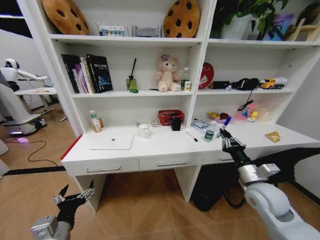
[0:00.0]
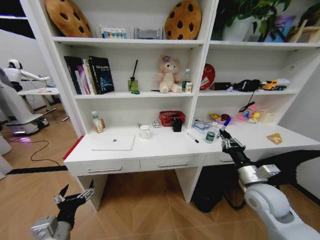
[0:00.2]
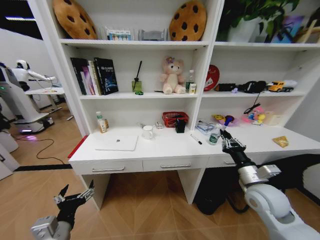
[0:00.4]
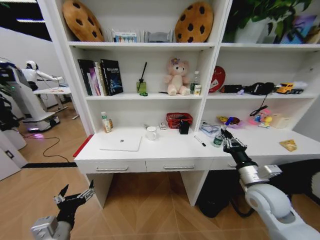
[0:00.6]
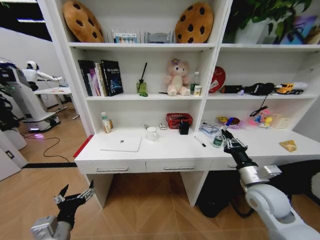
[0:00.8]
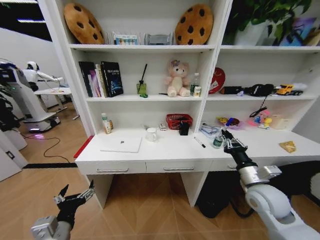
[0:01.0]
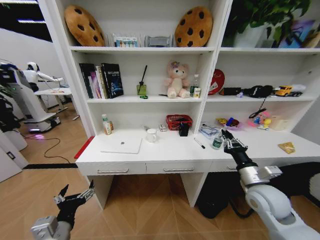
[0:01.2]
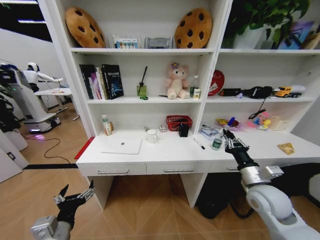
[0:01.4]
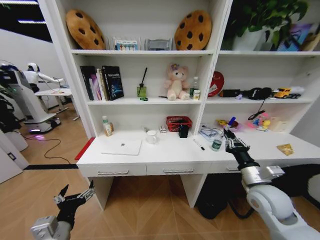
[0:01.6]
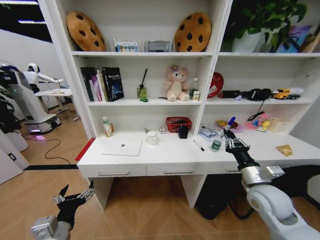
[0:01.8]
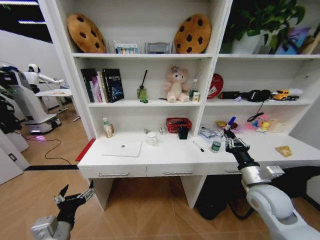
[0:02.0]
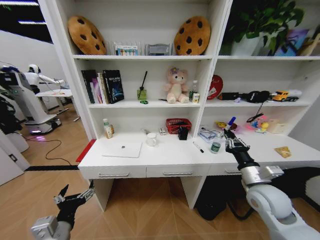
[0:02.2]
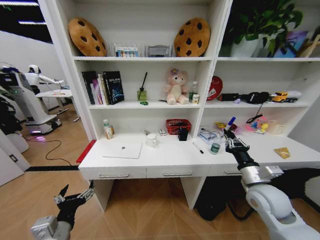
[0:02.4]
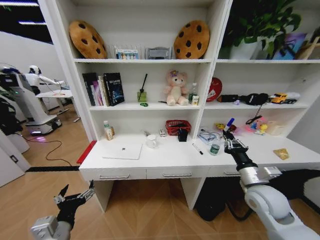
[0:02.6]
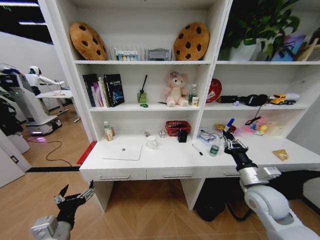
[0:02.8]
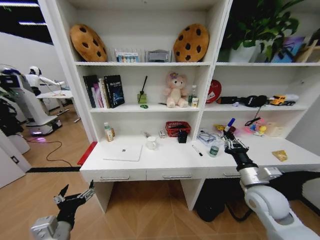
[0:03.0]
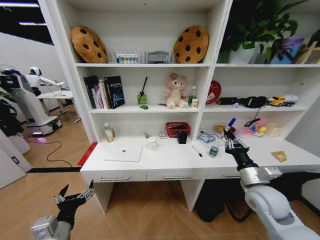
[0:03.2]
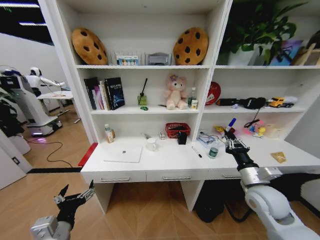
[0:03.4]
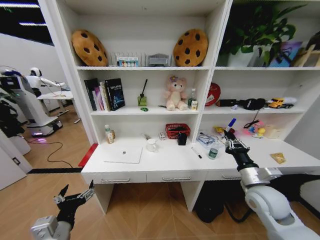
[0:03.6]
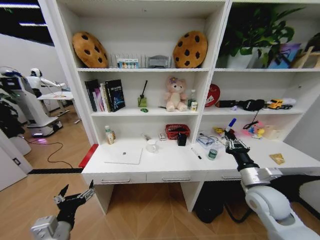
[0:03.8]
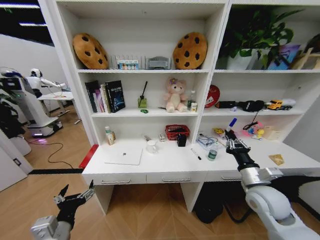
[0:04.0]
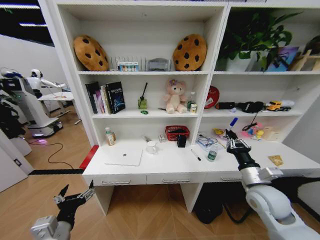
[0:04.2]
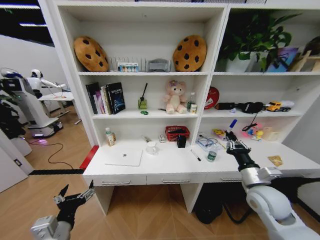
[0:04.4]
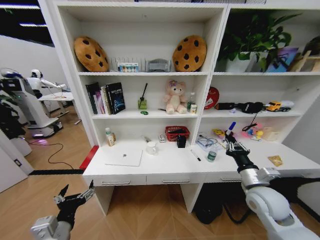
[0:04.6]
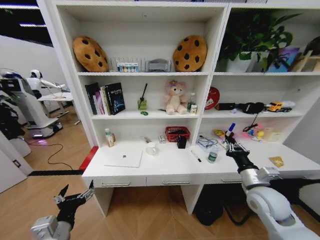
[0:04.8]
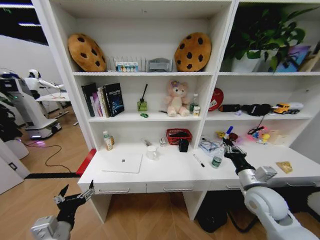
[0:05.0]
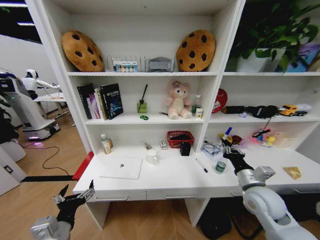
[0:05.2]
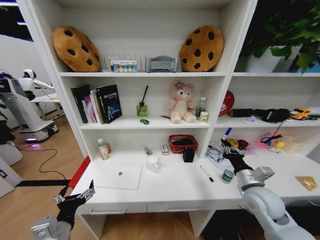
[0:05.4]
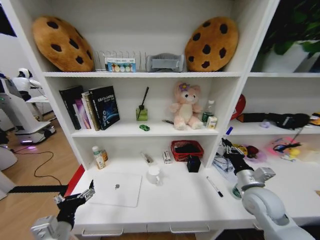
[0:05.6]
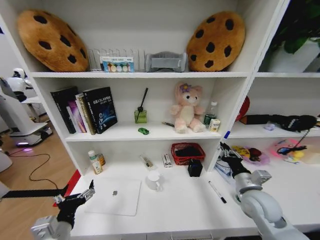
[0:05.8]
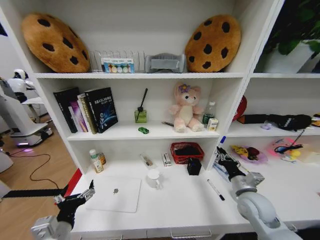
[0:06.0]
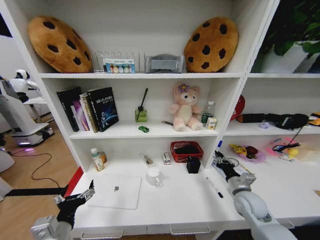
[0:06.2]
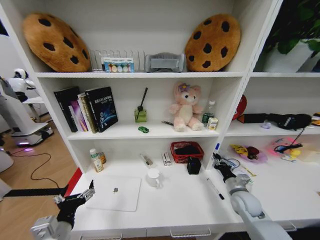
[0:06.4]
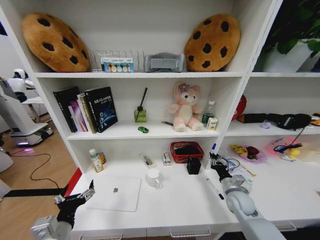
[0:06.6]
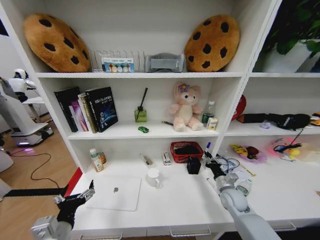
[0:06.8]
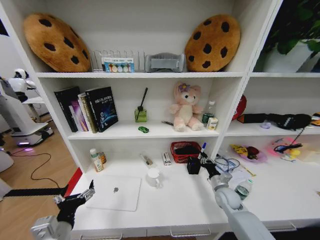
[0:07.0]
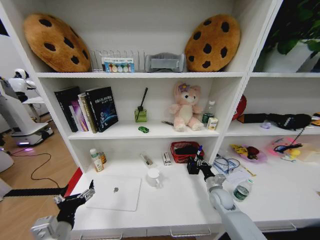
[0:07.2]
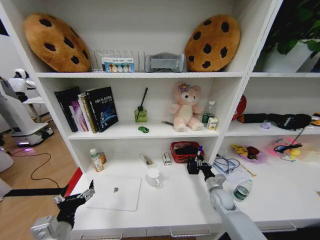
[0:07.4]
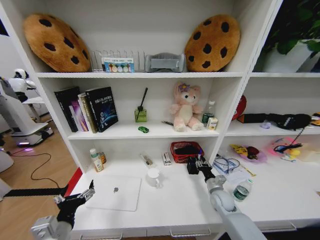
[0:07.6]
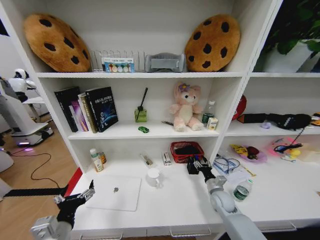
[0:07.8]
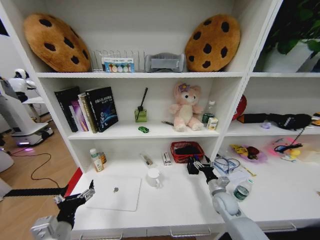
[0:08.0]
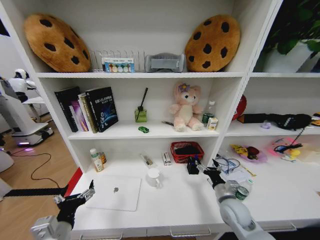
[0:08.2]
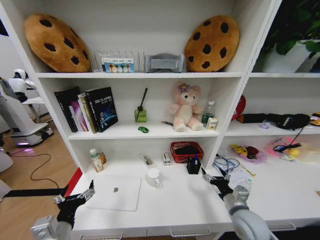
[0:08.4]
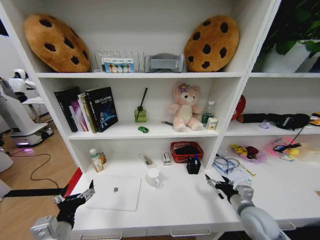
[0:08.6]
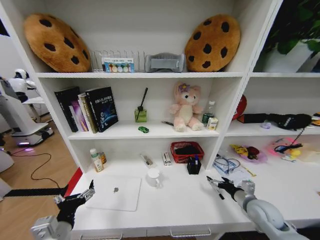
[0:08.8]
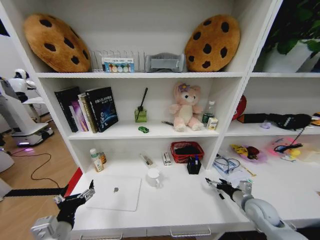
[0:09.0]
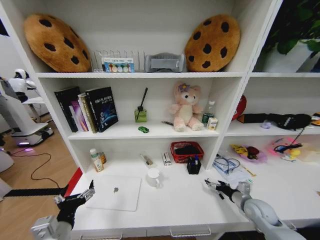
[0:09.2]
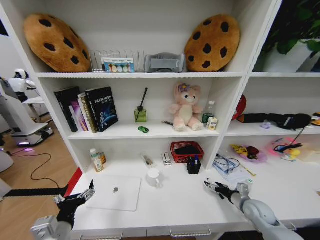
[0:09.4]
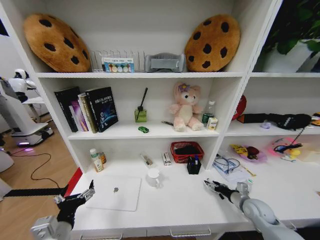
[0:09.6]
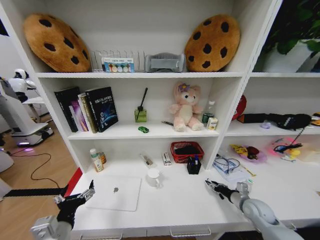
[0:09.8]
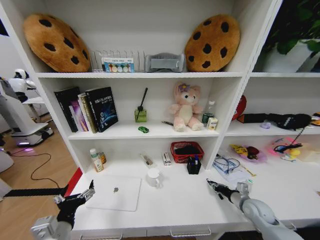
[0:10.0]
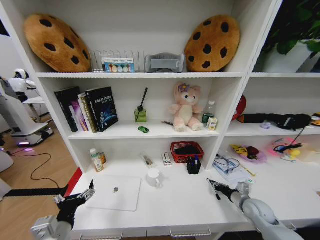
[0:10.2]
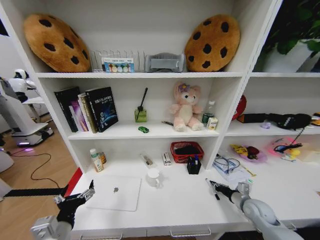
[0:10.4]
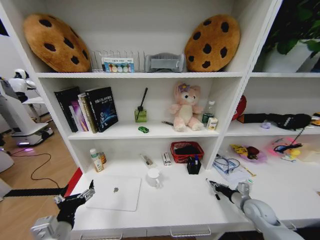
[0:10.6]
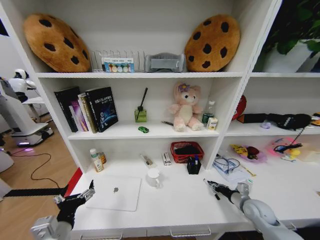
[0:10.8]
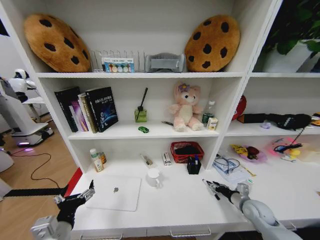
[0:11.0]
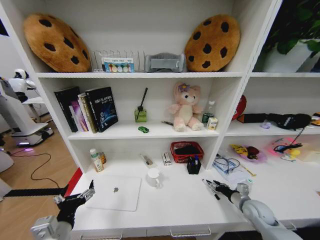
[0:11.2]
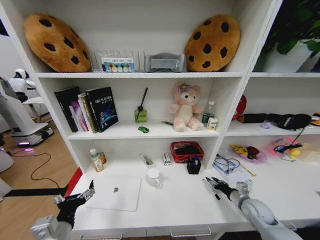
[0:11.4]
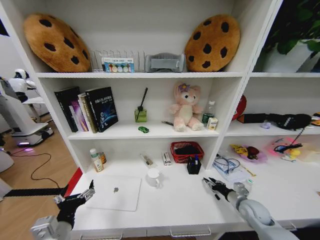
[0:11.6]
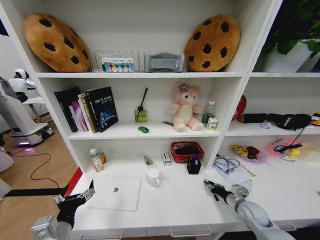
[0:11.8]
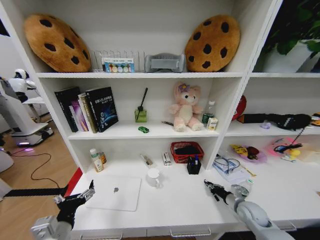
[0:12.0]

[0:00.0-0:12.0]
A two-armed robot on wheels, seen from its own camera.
Task of the whole recording: Organize the objects on the table.
0:04.4 to 0:06.0: The right gripper goes about 5 cm downward.
0:06.0 to 0:07.6: The right gripper shifts about 15 cm downward and forward.
0:07.6 to 0:09.0: The right gripper moves to the right, upward and backward, about 15 cm, and opens.
0:09.0 to 0:10.4: The right gripper closes up.
0:10.4 to 0:12.0: The right gripper opens, then closes once more.

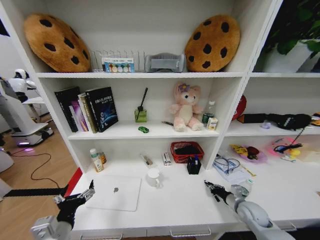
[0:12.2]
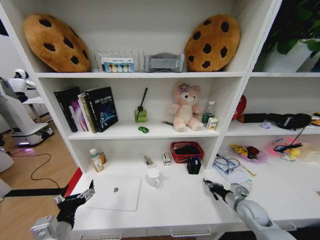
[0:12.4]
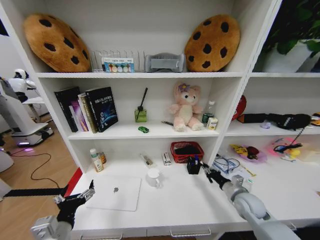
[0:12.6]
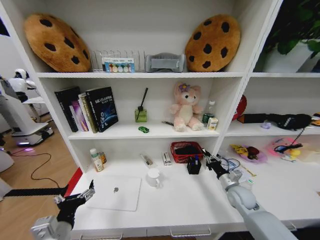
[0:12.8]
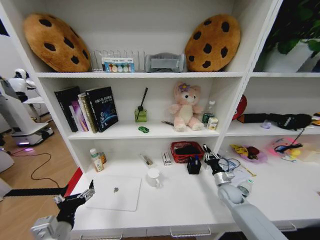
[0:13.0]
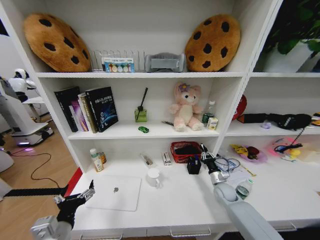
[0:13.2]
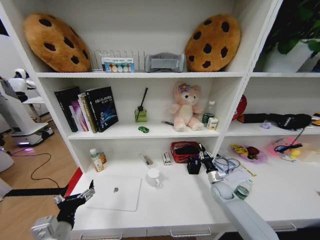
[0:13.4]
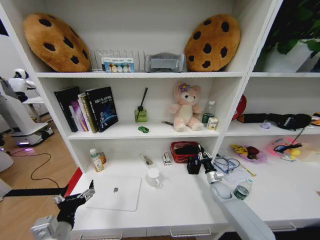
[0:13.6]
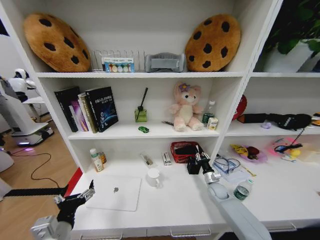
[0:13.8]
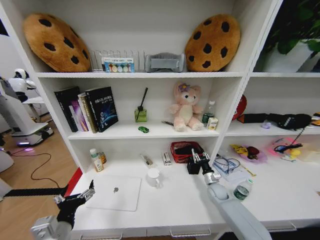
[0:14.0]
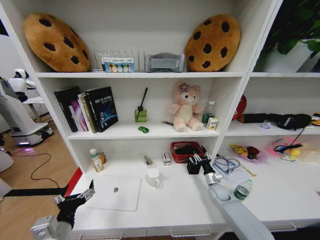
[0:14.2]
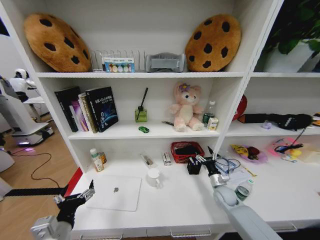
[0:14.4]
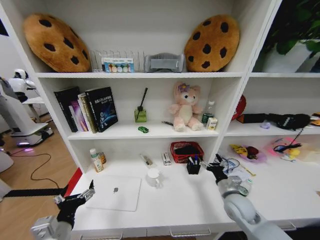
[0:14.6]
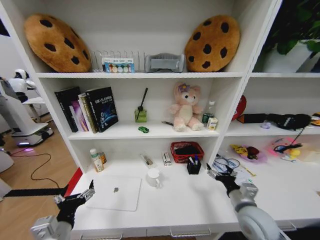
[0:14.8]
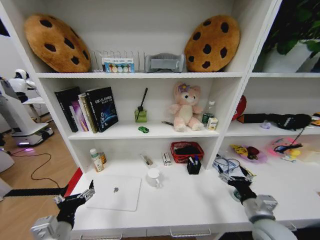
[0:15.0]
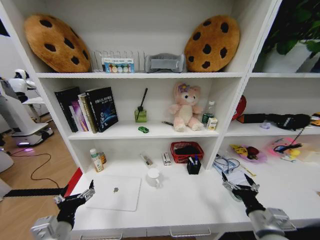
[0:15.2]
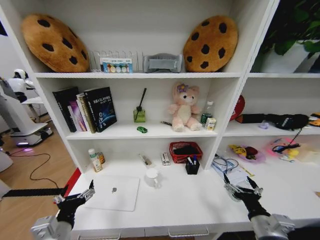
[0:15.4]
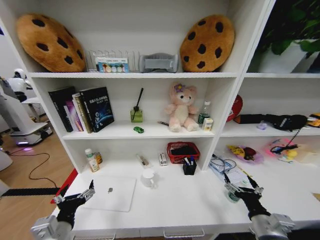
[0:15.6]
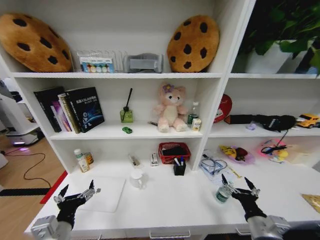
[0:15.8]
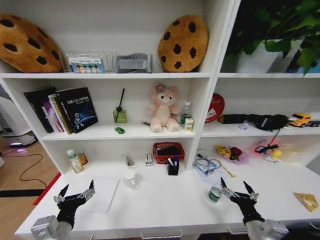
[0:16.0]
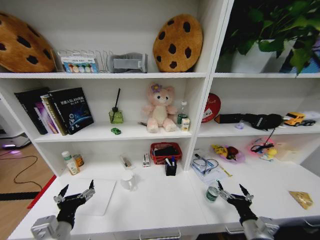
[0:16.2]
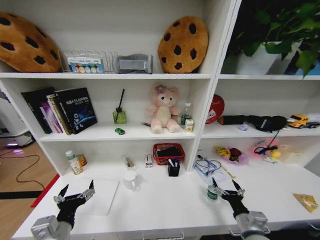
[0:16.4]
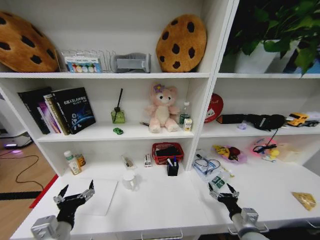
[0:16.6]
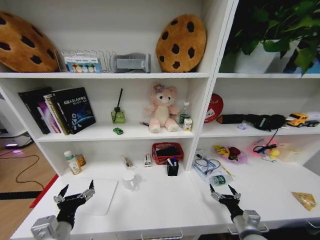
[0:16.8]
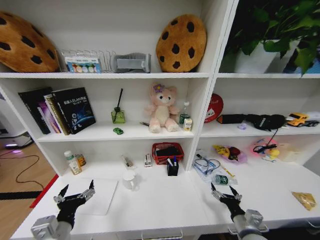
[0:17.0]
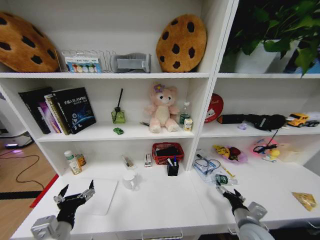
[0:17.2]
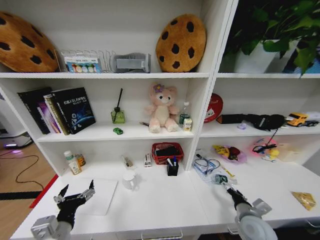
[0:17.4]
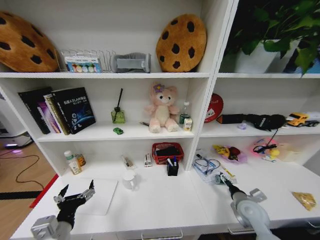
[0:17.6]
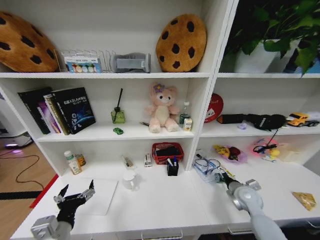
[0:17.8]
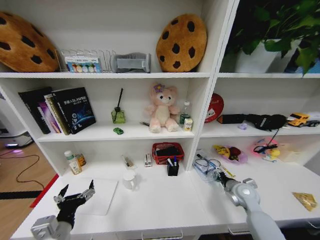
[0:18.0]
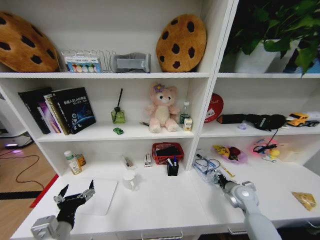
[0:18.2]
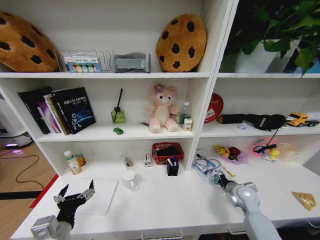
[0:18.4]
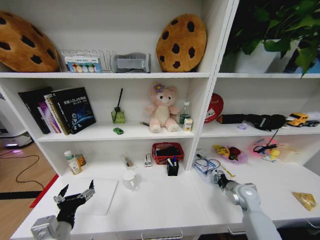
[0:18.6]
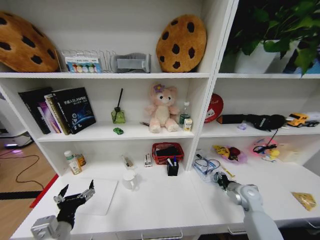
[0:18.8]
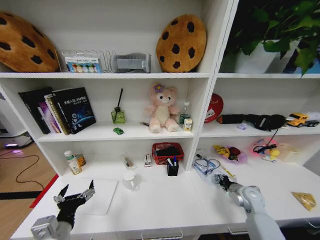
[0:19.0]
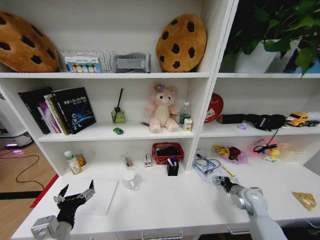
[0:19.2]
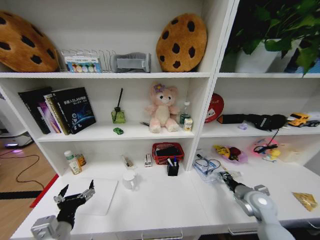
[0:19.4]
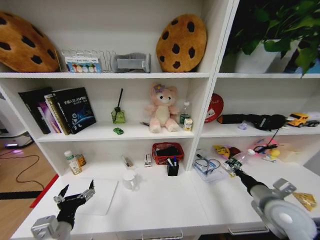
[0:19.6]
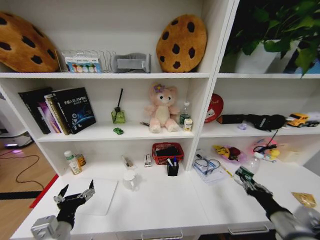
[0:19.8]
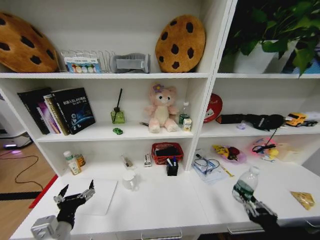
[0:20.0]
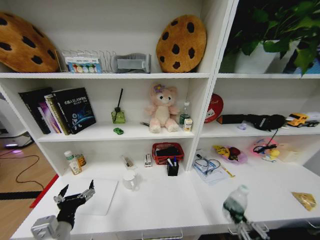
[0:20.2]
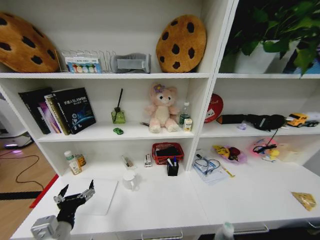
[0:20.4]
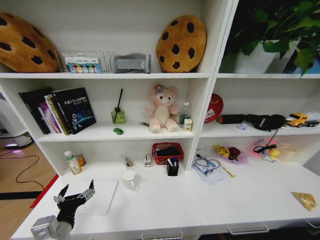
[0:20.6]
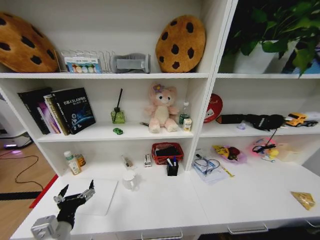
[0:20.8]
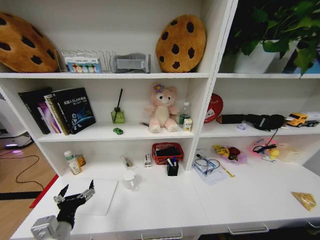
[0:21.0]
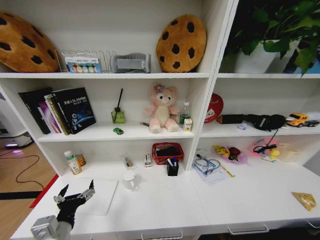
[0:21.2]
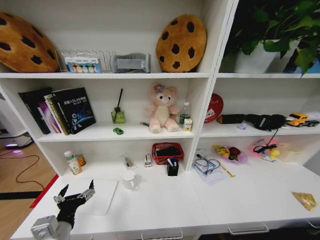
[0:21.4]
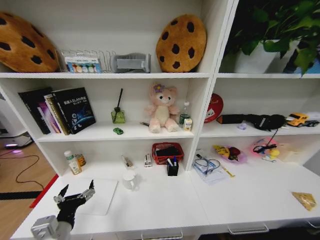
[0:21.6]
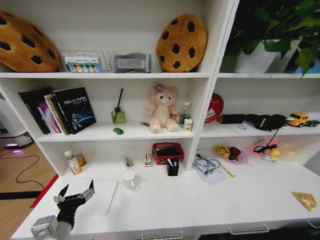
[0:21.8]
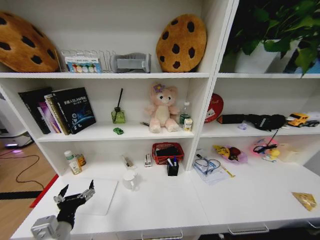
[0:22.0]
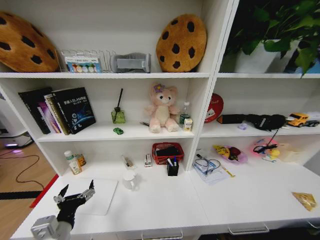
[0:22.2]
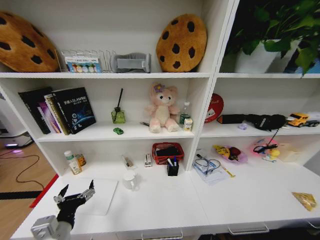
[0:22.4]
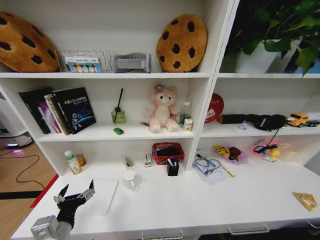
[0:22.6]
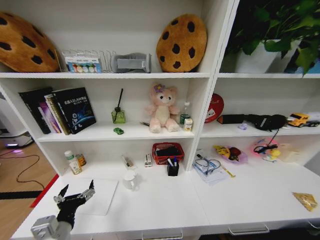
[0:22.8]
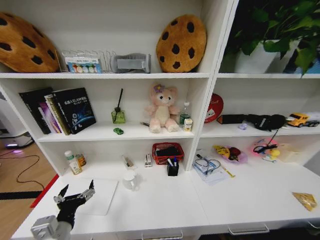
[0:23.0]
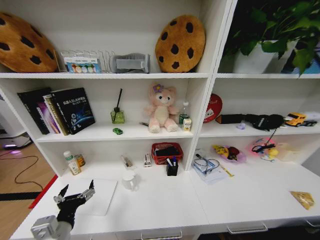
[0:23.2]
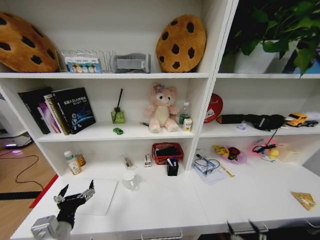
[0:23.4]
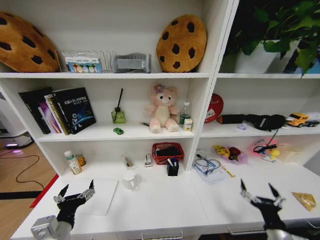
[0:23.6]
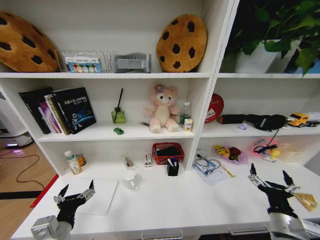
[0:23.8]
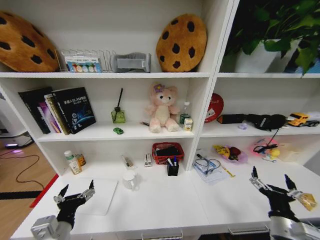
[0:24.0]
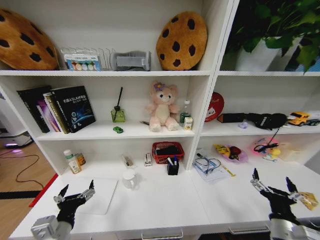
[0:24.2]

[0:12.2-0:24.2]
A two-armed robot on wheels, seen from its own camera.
Task of the whole recording: Organize the objects on the table.
0:12.2 to 0:13.8: The right gripper heads forward, to the left and downward, covering about 15 cm.
0:13.8 to 0:15.2: The right gripper goes about 30 cm backward and upward, and opens.
0:15.2 to 0:16.6: The right gripper shifts about 5 cm downward.
0:16.6 to 0:18.2: The right gripper shifts roughly 15 cm forward.
0:18.2 to 0:19.8: The right gripper is displaced backward and upward by some 20 cm, and closes.
0:19.8 to 0:21.2: The right gripper is displaced downward, backward and to the right by roughly 50 cm.
0:22.6 to 0:24.2: The right gripper is displaced upward by roughly 40 cm.
